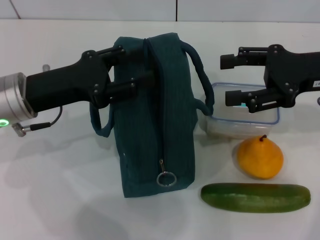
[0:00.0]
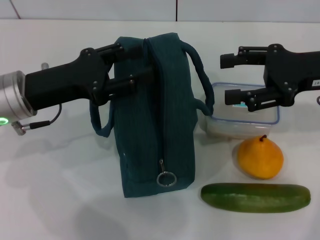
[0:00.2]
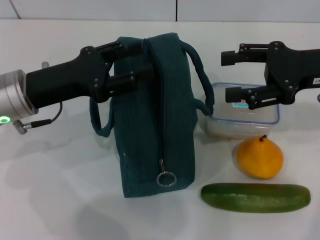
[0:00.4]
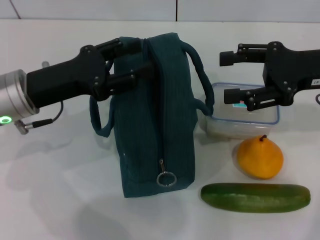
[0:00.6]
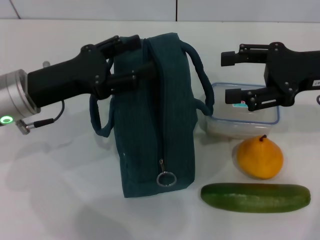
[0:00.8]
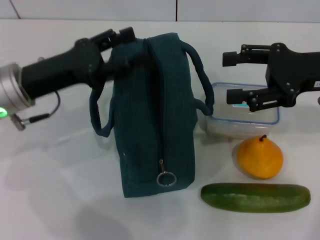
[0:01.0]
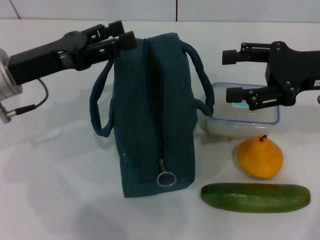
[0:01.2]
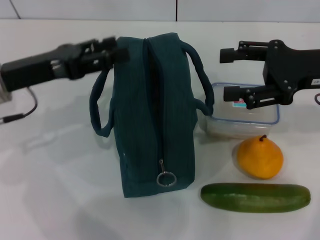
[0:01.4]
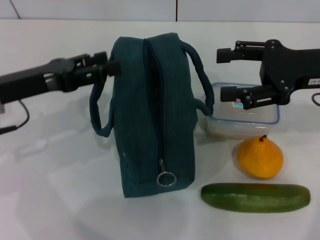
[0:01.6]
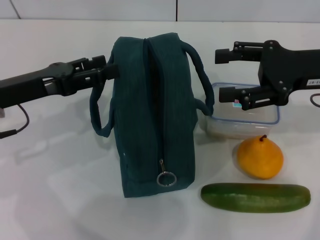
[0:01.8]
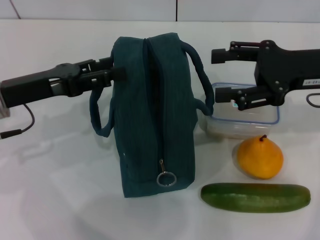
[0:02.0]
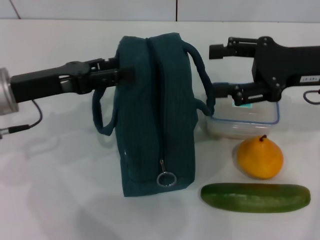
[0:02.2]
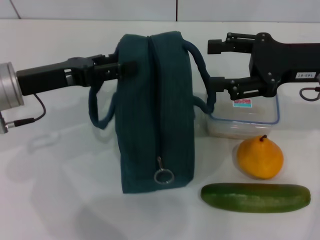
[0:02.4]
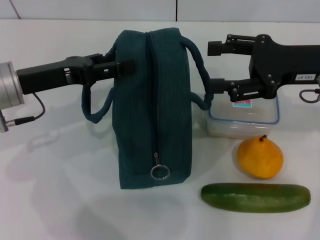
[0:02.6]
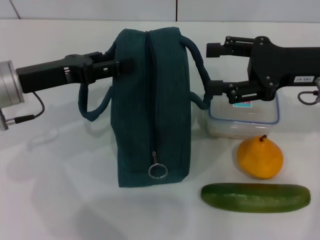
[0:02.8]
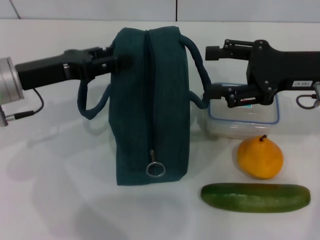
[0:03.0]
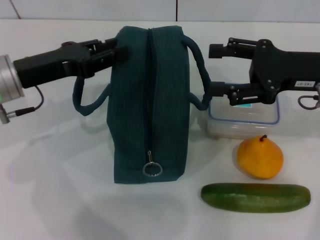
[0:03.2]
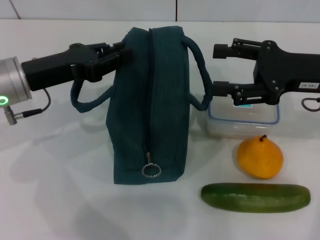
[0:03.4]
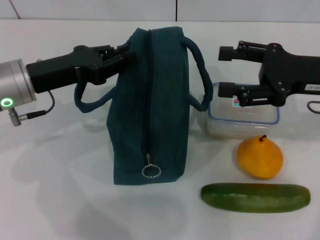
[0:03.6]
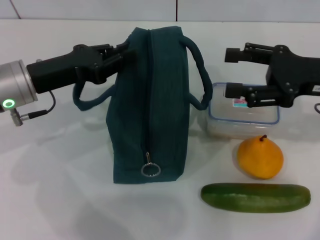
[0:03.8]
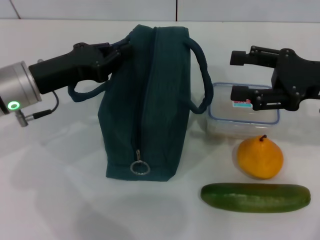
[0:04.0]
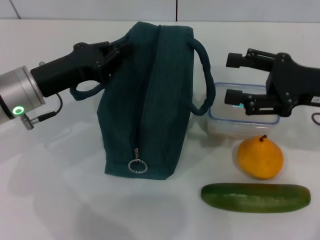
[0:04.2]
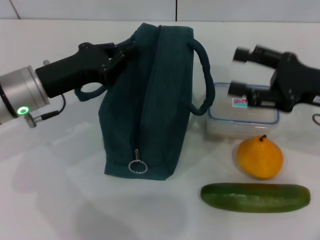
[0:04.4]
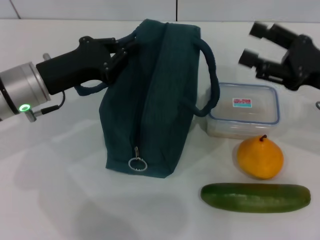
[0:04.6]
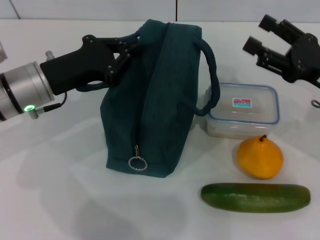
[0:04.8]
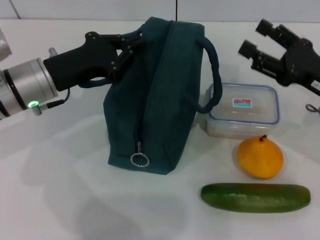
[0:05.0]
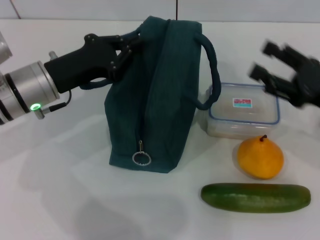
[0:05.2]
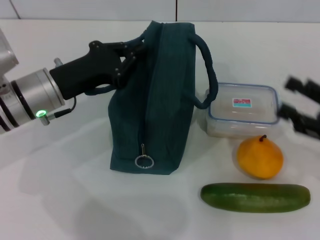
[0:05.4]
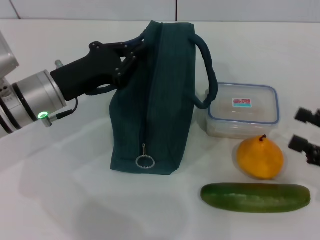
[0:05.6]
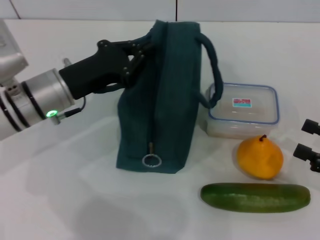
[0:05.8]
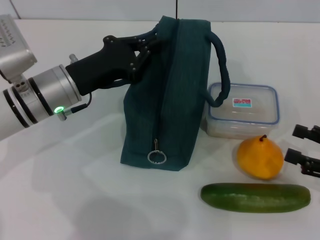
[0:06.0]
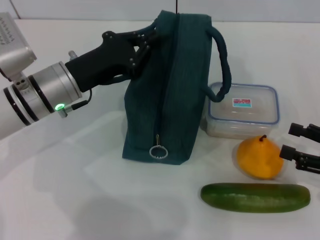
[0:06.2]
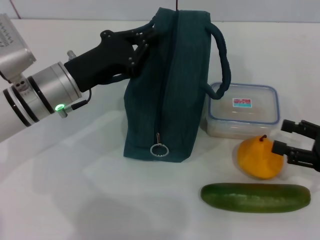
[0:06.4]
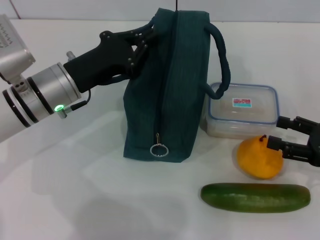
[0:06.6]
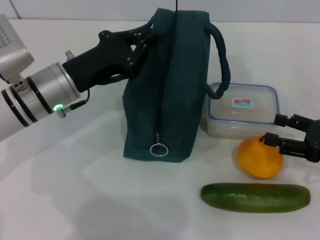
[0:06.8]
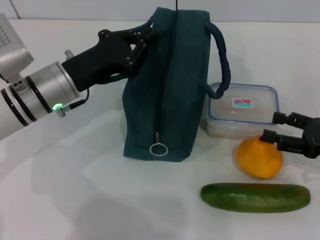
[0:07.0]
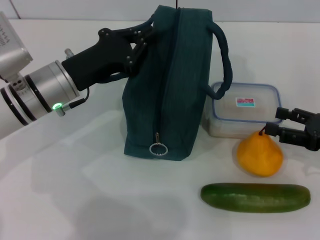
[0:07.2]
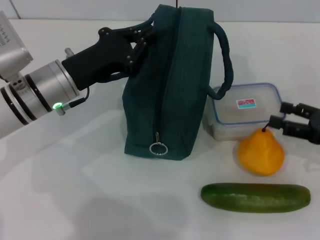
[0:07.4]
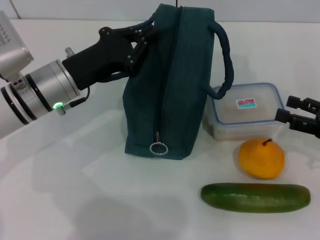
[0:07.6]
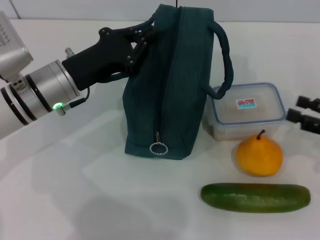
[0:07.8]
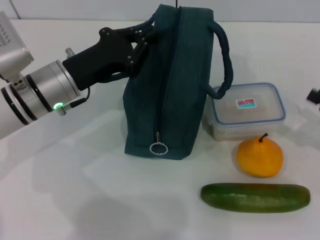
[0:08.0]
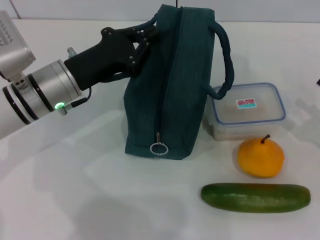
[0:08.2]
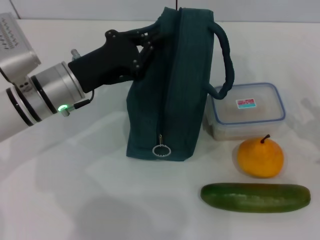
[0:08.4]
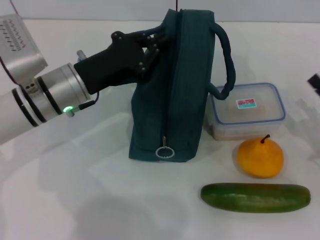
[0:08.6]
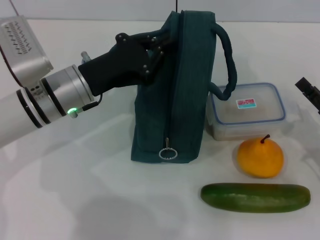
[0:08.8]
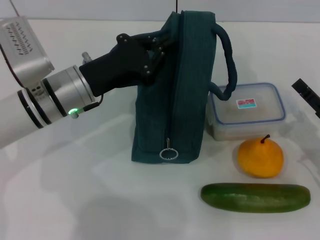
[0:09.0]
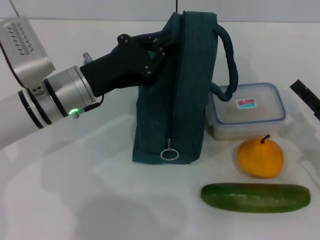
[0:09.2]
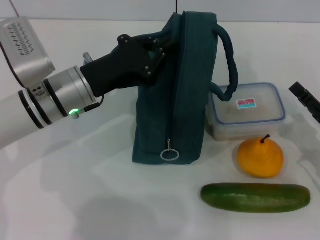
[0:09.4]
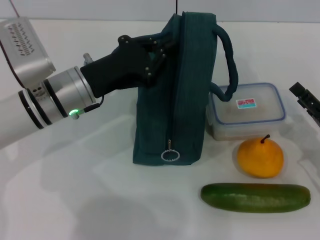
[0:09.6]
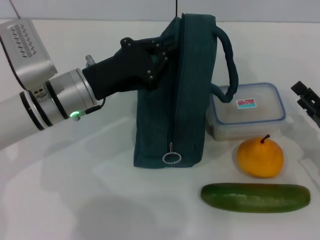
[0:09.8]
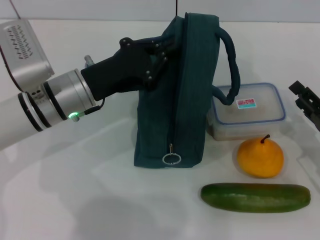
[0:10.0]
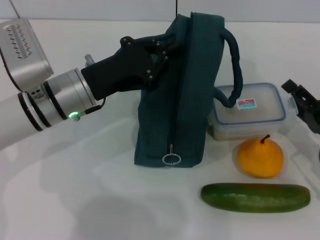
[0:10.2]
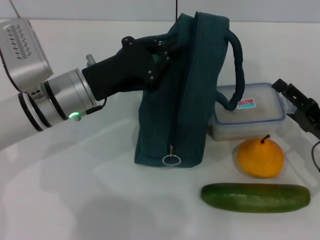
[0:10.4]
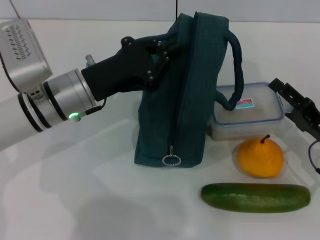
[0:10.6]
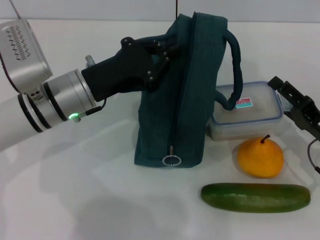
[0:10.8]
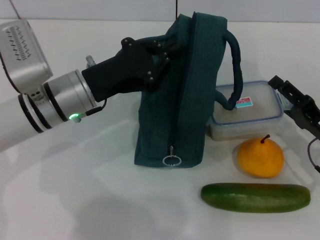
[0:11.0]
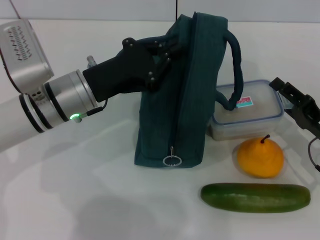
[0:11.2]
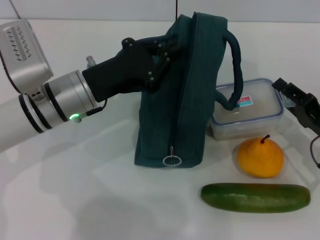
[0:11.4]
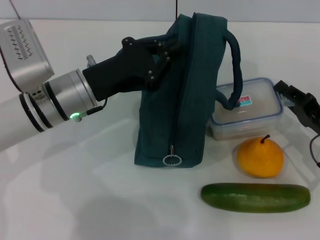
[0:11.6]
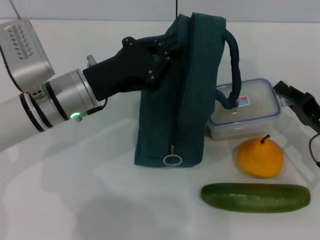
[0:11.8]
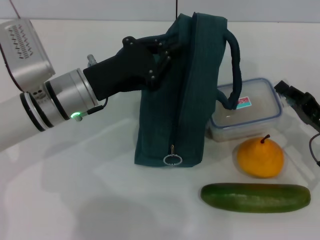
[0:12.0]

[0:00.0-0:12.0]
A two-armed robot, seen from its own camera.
Step, 0:00.0 to 0:06.4: Hold the lunch bag with your left hand.
Step, 0:06.6 to 0:11.6: Pick up the lunch box with your right hand.
0:01.6 to 0:03.0: There are only small adjustments of the grippers.
0:03.0 to 0:04.4: The left gripper closes; the right gripper ends up roughly 5 cm from where it was.
0:04.4 to 0:06.0: The right gripper is displaced backward, to the right and downward by roughly 15 cm.
0:06.0 to 0:07.6: The right gripper travels forward by some 5 cm.
0:07.6 to 0:09.0: The right gripper ends up roughly 5 cm from where it was.
0:09.0 to 0:10.4: The grippers stay close to where they were, moving slightly.
0:10.4 to 0:12.0: The right gripper closes up.

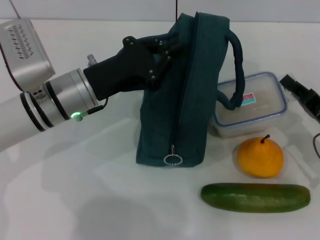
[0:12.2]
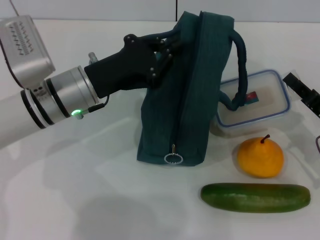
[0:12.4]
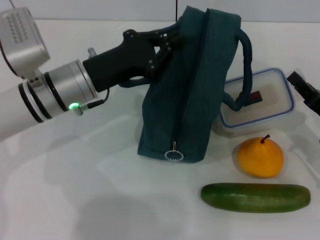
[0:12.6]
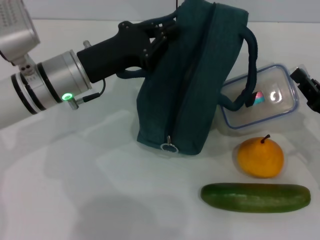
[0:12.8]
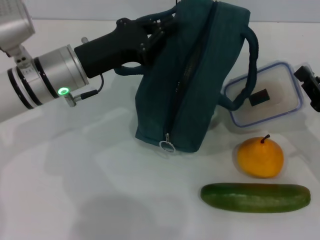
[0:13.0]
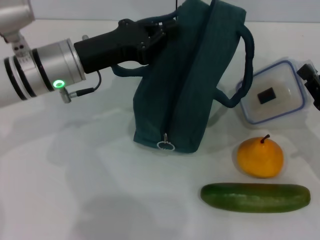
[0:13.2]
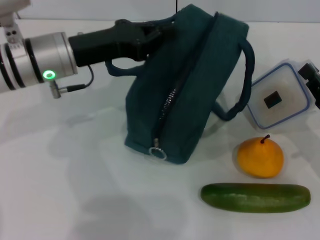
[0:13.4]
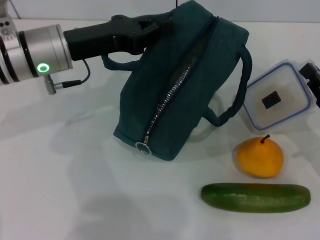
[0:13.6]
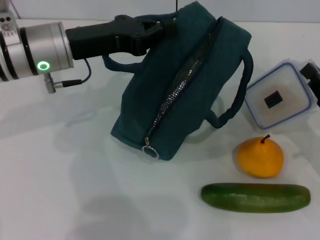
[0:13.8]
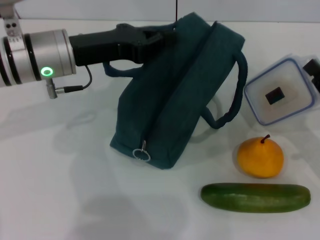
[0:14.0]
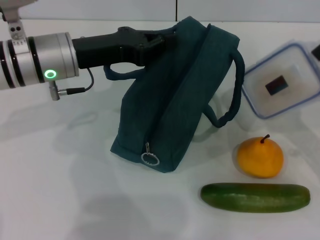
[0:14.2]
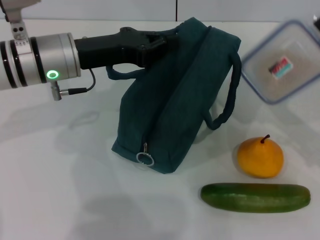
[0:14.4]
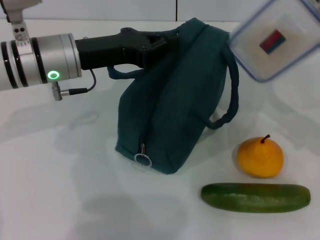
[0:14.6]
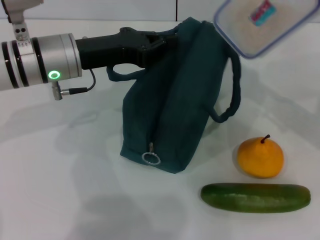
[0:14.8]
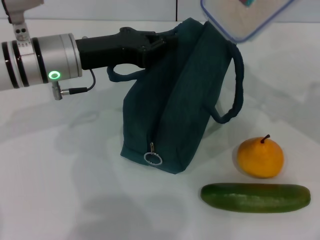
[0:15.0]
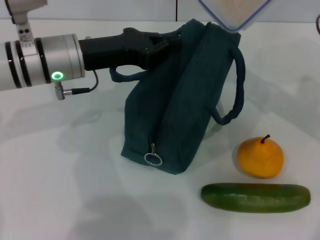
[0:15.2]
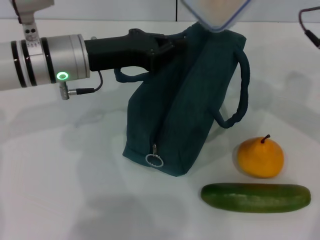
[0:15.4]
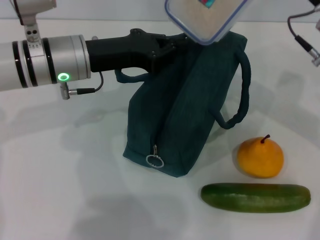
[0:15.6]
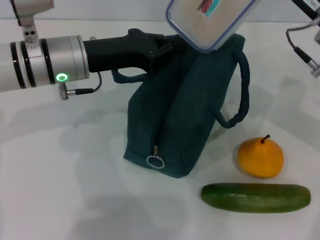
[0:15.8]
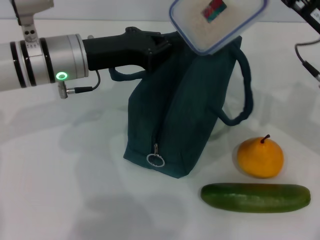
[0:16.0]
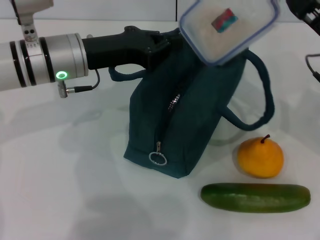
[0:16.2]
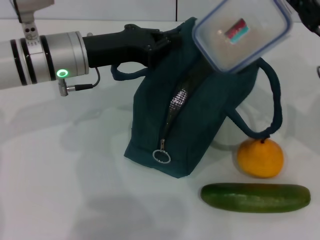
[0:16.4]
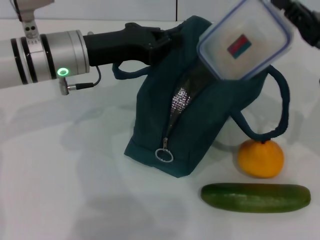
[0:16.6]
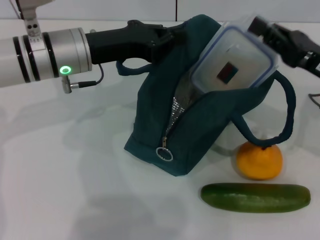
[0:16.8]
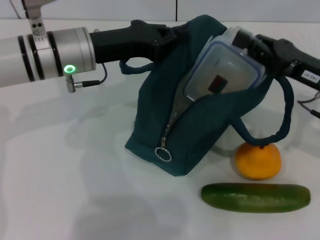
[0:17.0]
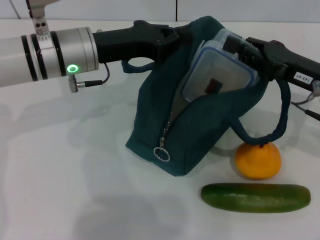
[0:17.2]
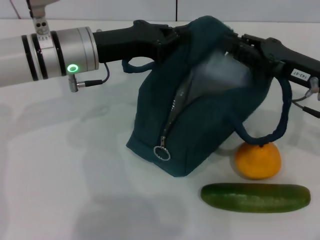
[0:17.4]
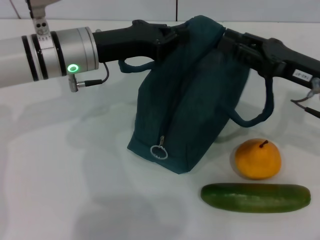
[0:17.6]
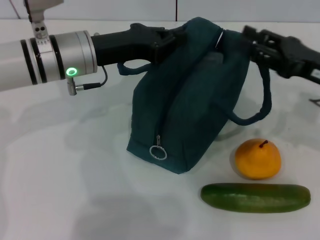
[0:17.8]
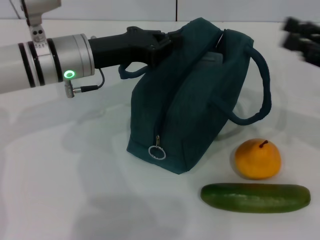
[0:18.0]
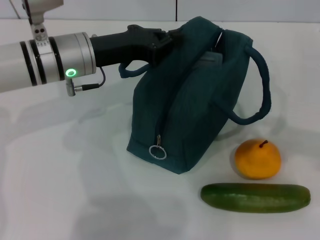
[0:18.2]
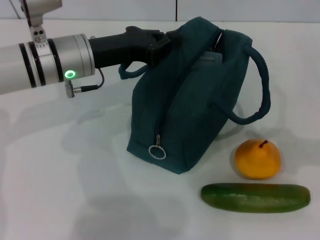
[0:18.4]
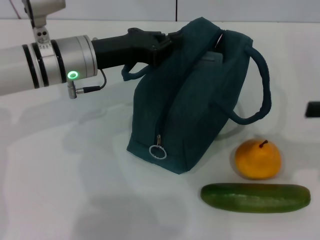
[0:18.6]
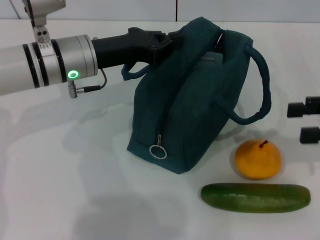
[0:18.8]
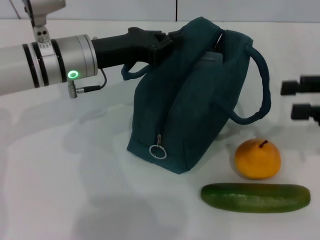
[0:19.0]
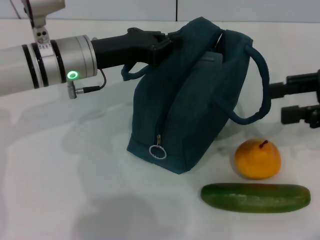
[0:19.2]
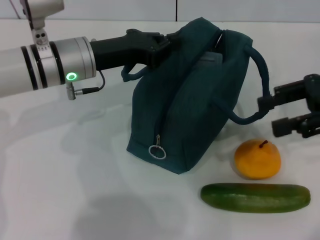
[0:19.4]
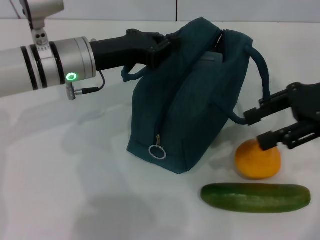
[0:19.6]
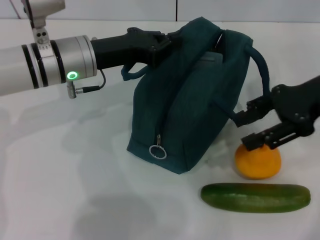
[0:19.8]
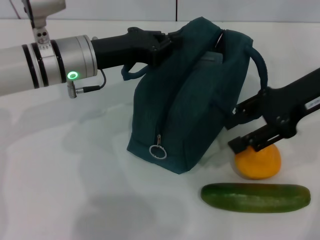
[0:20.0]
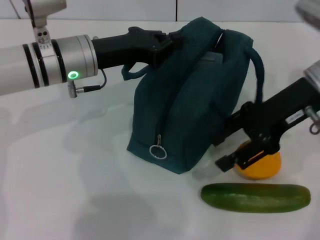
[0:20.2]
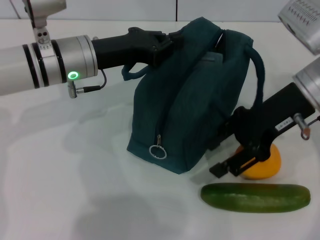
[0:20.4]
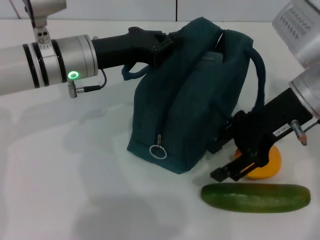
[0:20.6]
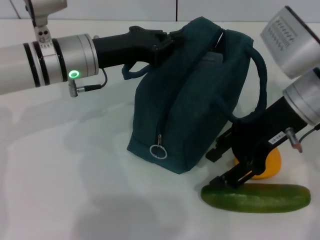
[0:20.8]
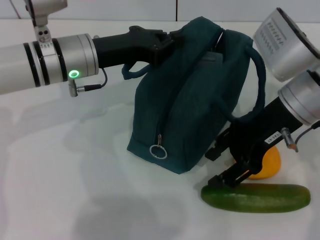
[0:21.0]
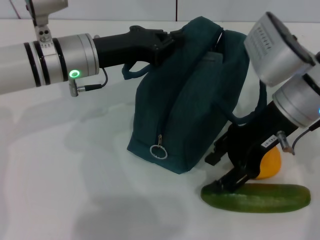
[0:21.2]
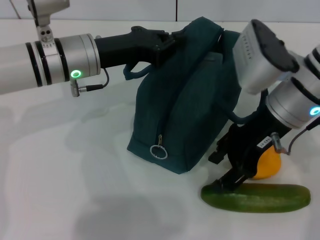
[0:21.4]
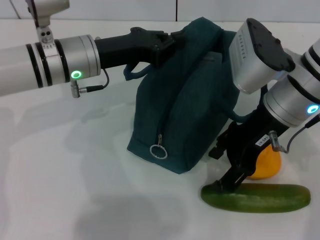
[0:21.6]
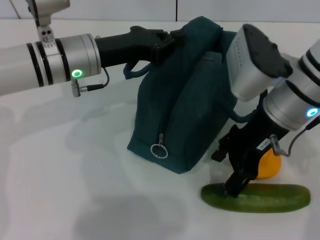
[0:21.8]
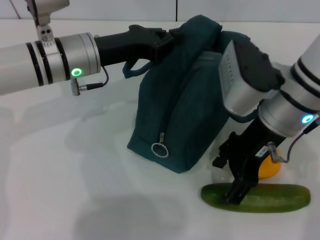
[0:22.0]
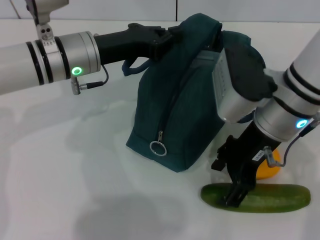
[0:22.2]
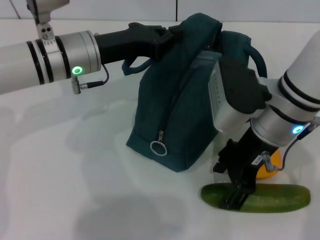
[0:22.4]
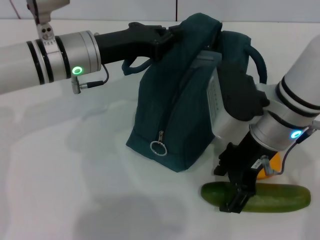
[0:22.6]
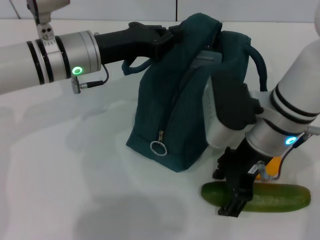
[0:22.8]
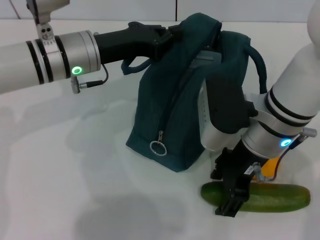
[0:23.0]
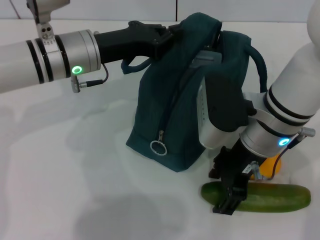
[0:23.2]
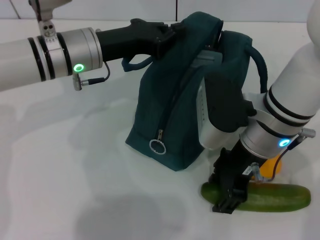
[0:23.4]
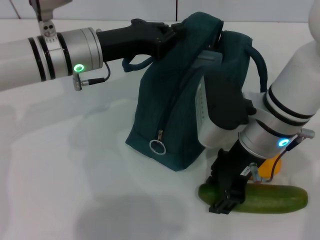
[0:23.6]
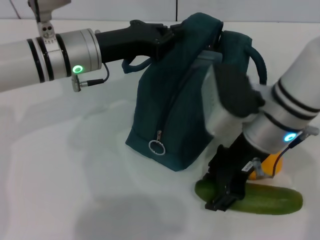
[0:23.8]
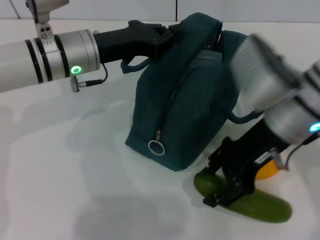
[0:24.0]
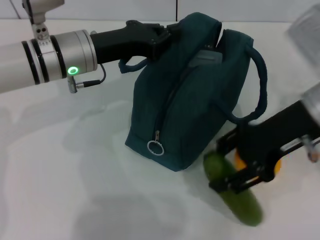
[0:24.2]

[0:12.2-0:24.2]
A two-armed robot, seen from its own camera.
Step, 0:12.2 to 0:17.8: Place the lunch box into the lunch bag with your right hand.
Step, 0:18.0 to 0:23.6: Pick up the cucumber with your right hand.
0:12.2 to 0:13.8: The left gripper goes roughly 5 cm upward.
0:13.8 to 0:15.2: The right gripper moves upward, forward and to the left, about 20 cm.
0:15.2 to 0:16.6: The right gripper shifts some 5 cm downward.
0:16.6 to 0:18.2: The right gripper shifts approximately 10 cm to the right, and opens.
0:18.2 to 0:19.8: The right gripper goes about 15 cm to the left and forward.
0:19.8 to 0:21.2: The right gripper goes approximately 10 cm to the left.
0:22.6 to 0:24.2: The right gripper moves to the right, roughly 5 cm.
